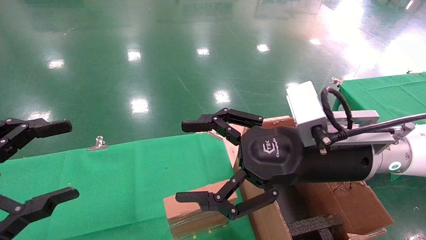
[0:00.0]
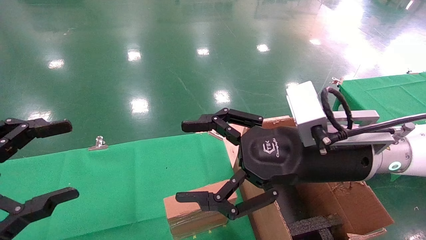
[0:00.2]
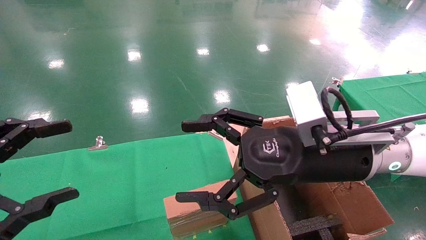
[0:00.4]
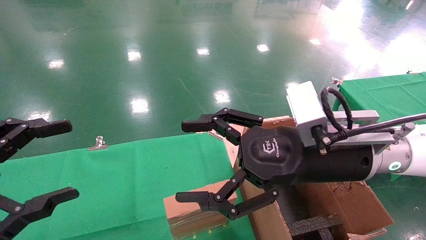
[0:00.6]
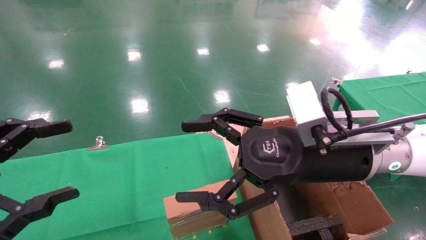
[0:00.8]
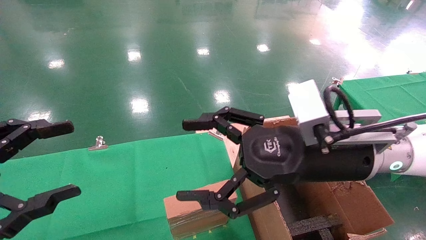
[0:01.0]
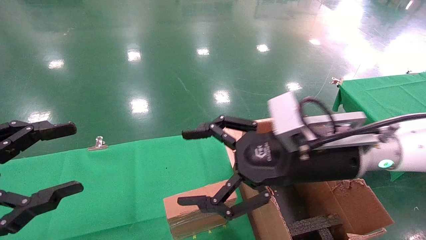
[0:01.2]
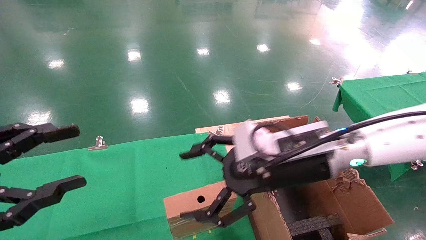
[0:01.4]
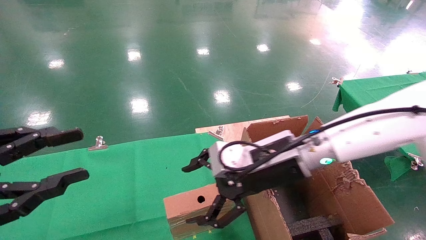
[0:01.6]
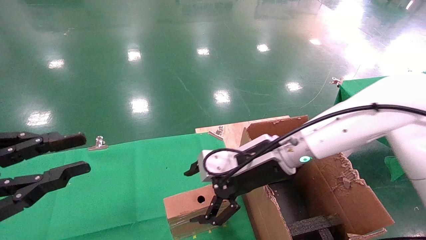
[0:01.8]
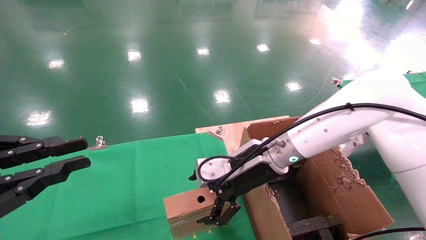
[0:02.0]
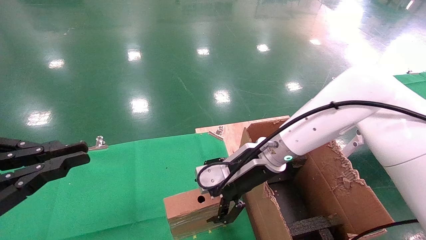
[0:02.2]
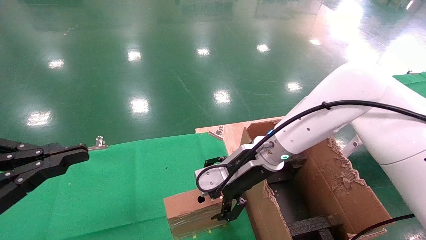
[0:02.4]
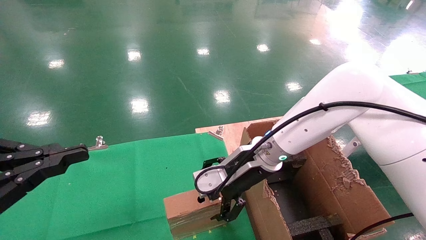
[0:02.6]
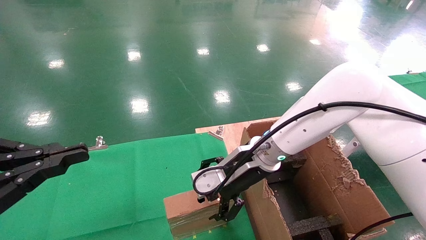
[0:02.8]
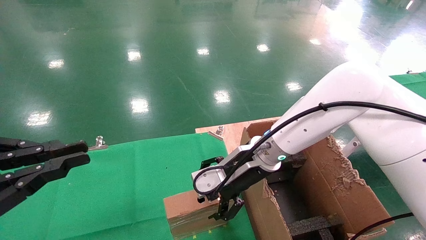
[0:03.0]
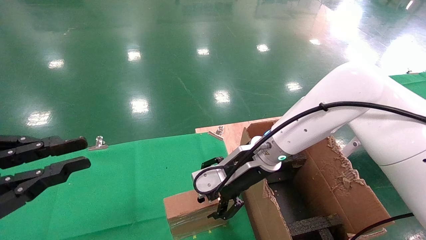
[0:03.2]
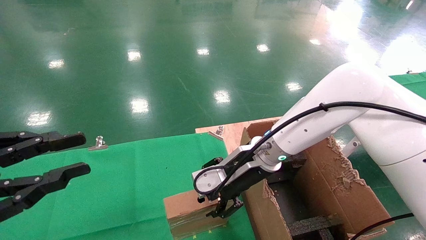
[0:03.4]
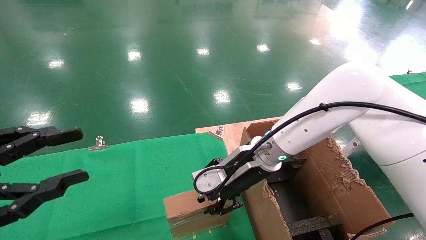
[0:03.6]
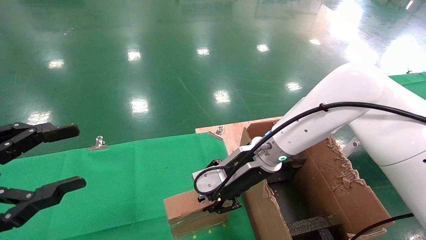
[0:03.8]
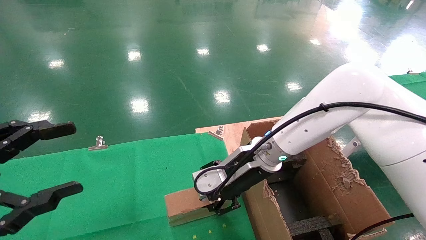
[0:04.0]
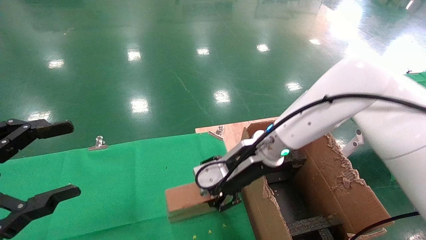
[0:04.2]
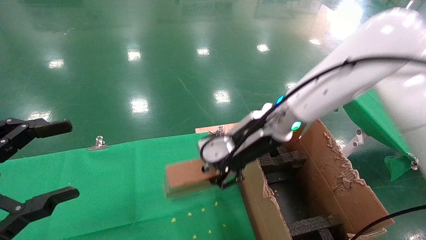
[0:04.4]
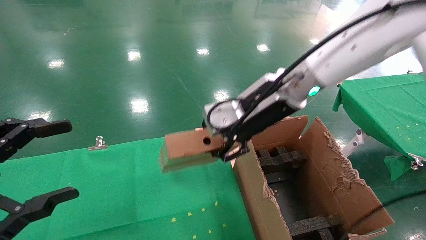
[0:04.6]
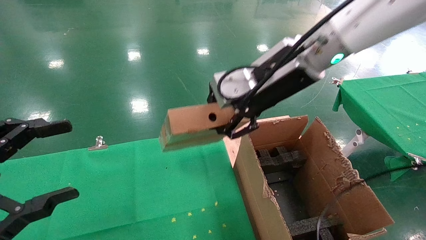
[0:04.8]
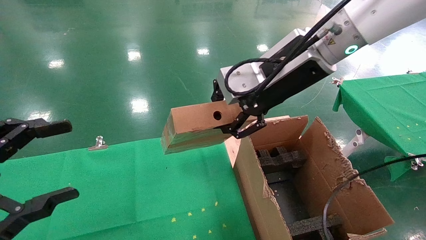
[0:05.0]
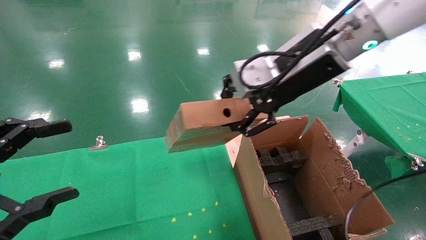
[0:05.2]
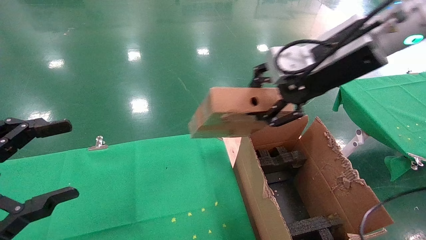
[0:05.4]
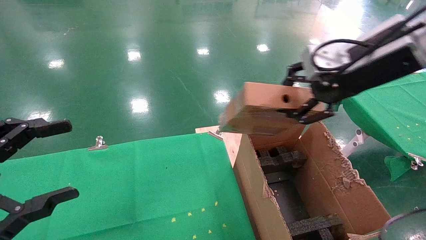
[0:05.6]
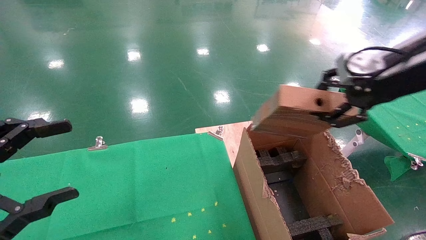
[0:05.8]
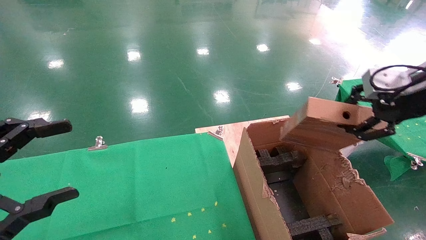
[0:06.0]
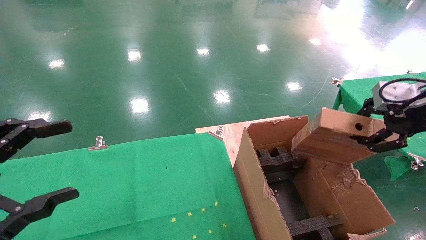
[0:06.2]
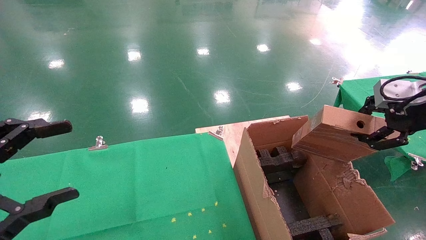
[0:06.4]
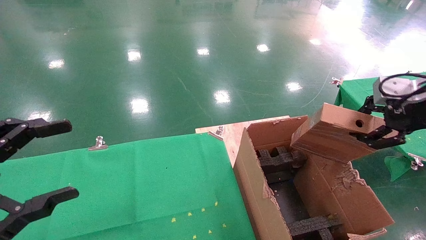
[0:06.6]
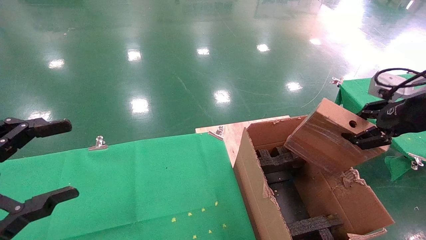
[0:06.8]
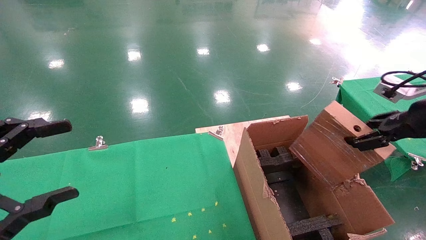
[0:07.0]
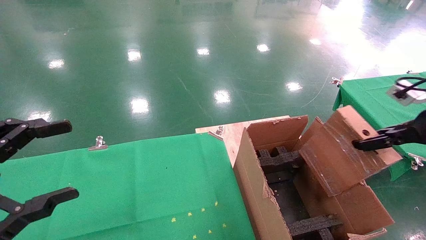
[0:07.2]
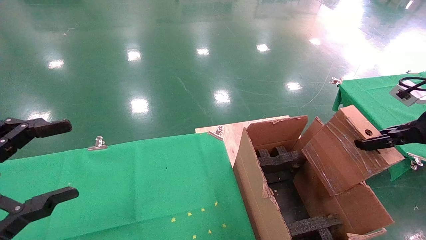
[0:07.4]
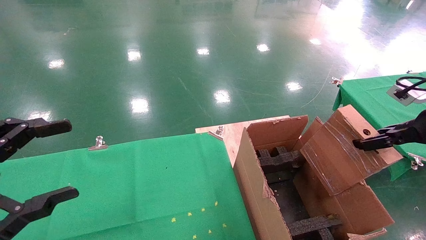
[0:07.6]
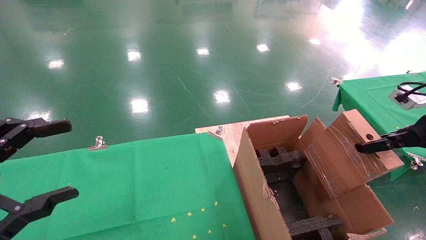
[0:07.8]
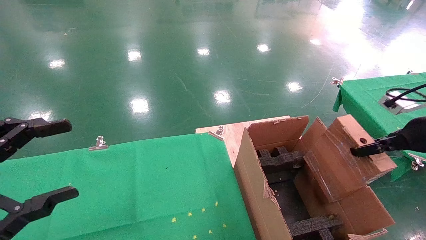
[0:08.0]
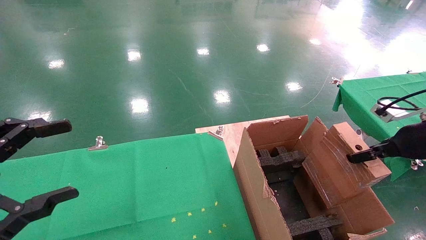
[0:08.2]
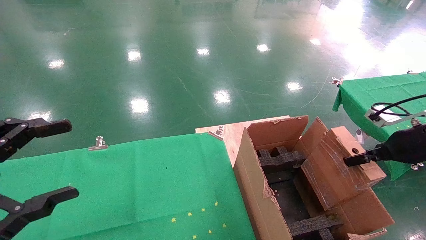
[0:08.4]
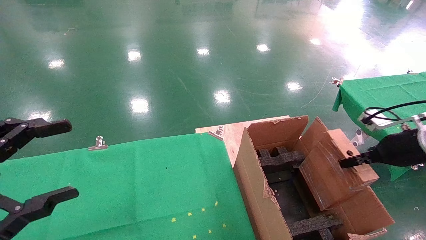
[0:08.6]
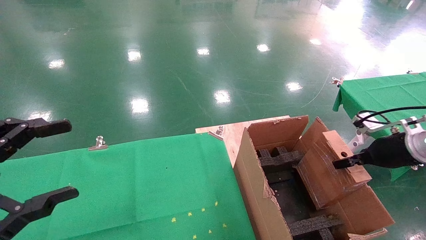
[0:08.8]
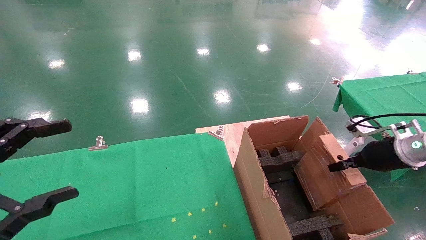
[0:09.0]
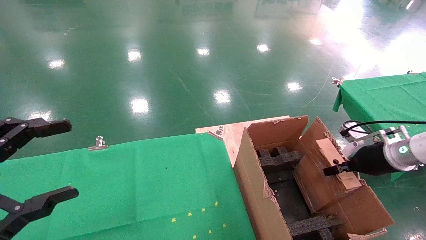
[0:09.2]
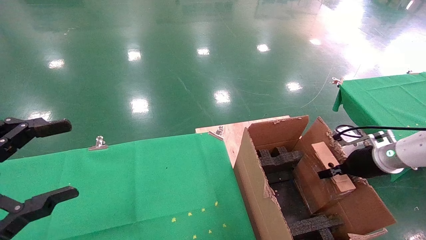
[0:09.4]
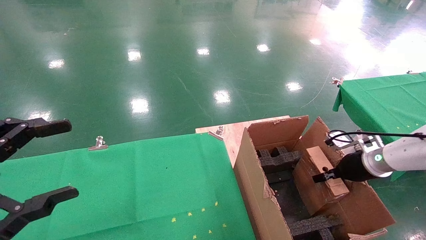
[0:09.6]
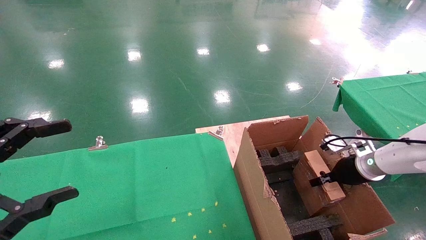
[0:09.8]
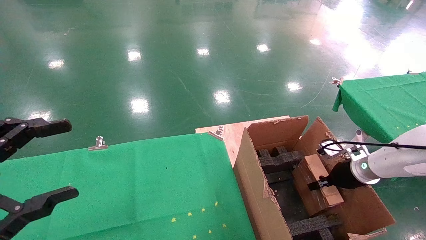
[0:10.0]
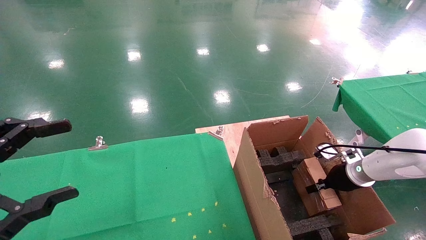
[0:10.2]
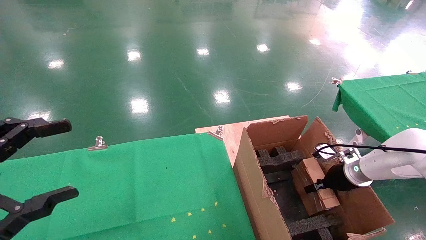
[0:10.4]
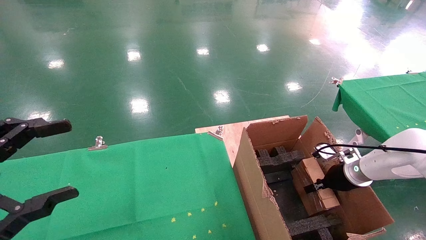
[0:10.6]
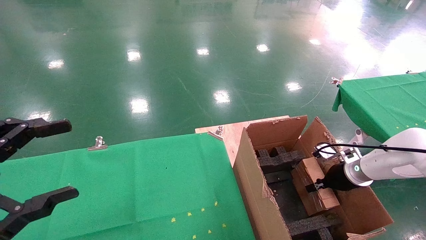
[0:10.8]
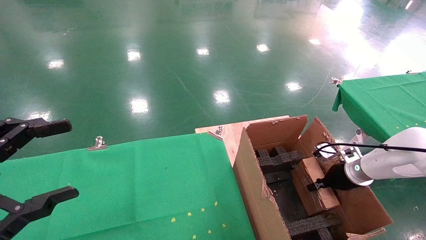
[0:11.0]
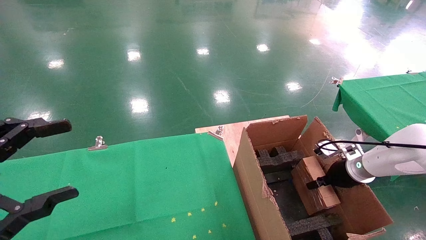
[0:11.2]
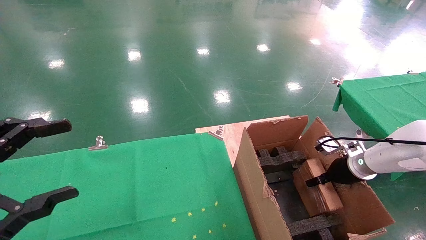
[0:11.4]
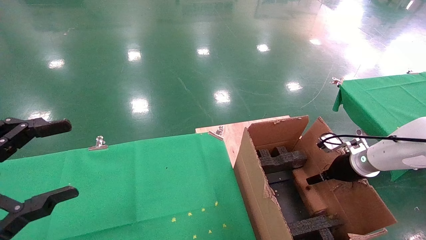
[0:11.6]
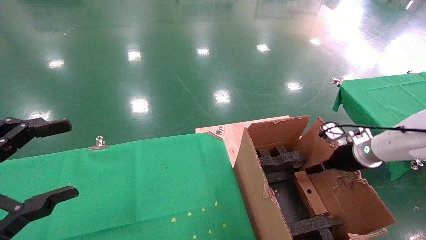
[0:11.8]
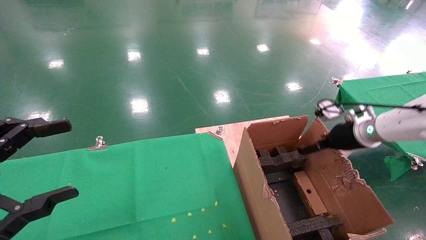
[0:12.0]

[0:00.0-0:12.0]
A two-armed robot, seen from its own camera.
Task of the whole recording: using a robotic arm to pick up a cardboard box and palace it the carton.
Step, 0:01.6 to 0:03.8: Pick up the mouse and the power cord paper box.
Step, 0:04.0 to 0:11.4: Place the mouse and the power cord paper box into the container.
0:00.0 to 0:01.6: The left gripper closes. Meanwhile the right gripper heads forward, covering about 5 cm.
0:01.6 to 0:03.0: The right gripper changes place by about 5 cm; the left gripper closes.
0:03.0 to 0:04.4: The right gripper is displaced upward by about 10 cm, and closes its fingers. The left gripper opens its fingers.
0:04.4 to 0:06.0: The right gripper shifts approximately 25 cm to the right.
0:06.0 to 0:07.6: The right gripper heads to the right and downward, covering some 10 cm.
0:07.6 to 0:09.0: The right gripper heads downward and forward, covering roughly 15 cm.
0:09.0 to 0:10.4: The right gripper heads downward and forward, covering roughly 10 cm.
0:10.4 to 0:12.0: The right gripper moves upward, some 15 cm, and opens its fingers.

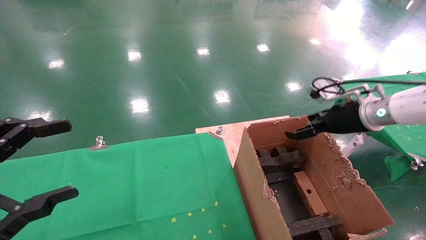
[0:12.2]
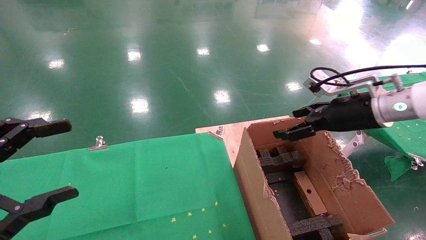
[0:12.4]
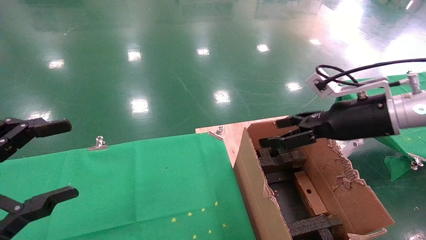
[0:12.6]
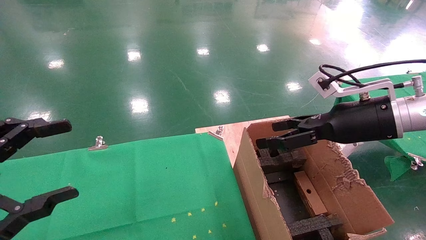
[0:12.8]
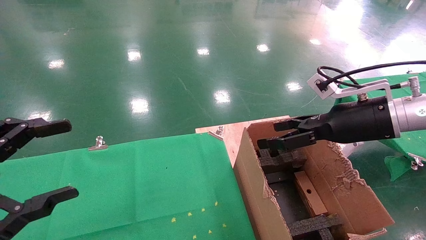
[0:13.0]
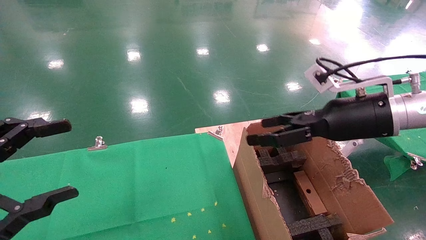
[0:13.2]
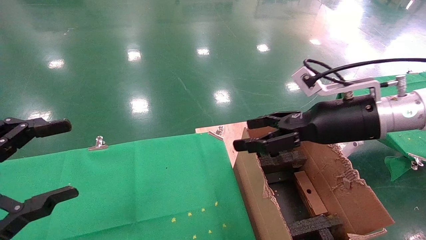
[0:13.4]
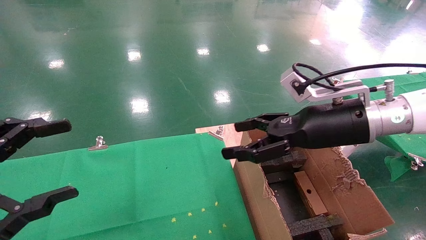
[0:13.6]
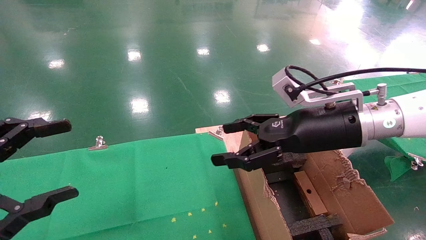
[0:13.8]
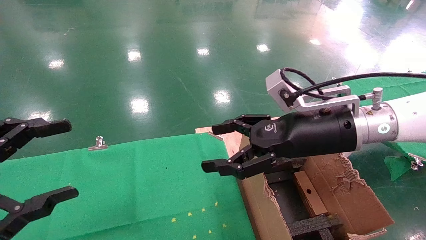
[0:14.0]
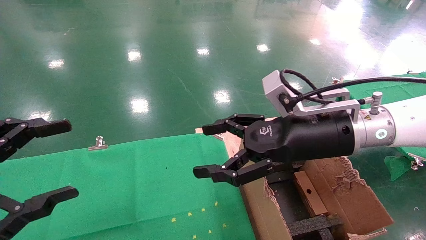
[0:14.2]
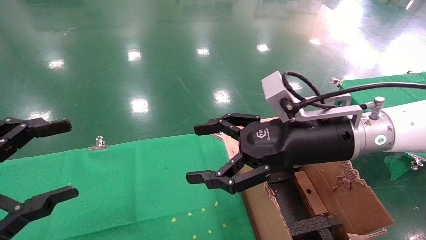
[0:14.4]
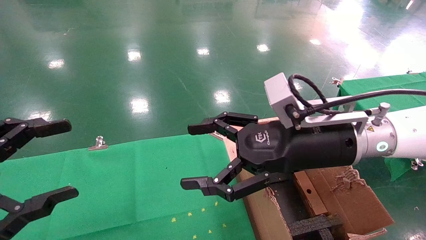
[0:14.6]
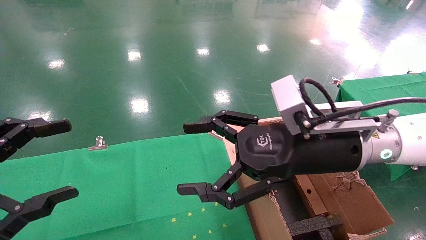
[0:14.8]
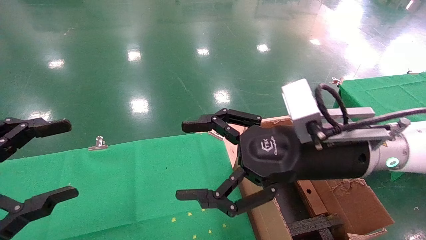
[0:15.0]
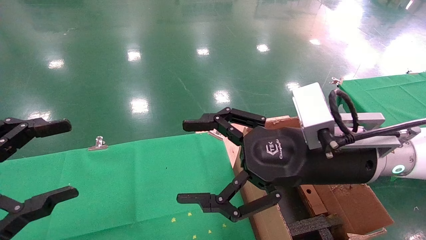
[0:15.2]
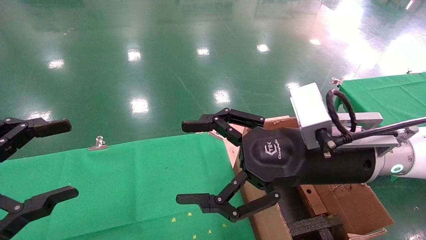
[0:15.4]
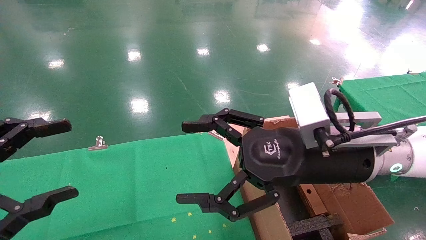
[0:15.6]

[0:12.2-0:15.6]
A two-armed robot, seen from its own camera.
Task of the whole recording: using a robotic arm to pick up a cardboard box and palace it the carton.
0:12.2 to 0:13.8: The right gripper shifts some 15 cm to the left and backward.
0:13.8 to 0:15.6: The right gripper goes some 5 cm backward.
